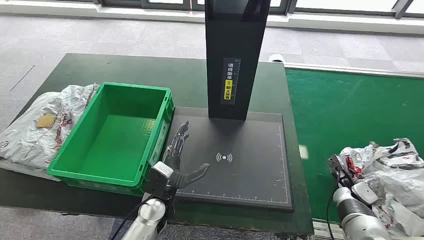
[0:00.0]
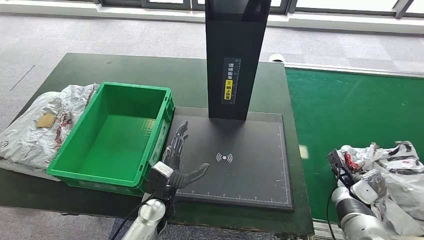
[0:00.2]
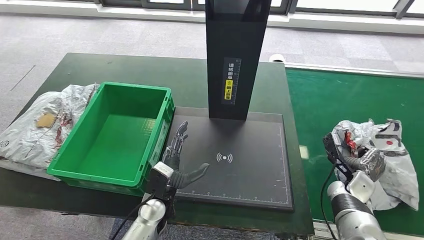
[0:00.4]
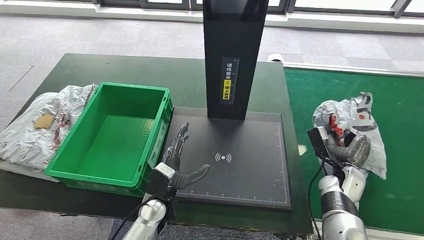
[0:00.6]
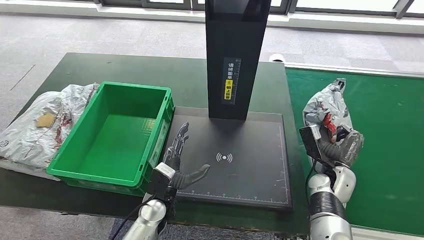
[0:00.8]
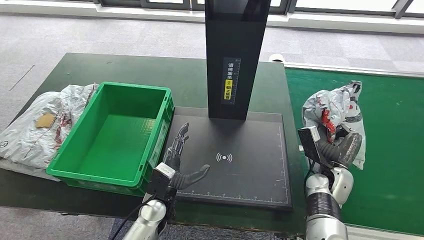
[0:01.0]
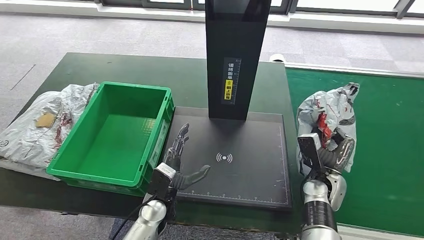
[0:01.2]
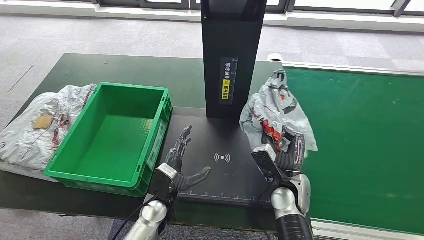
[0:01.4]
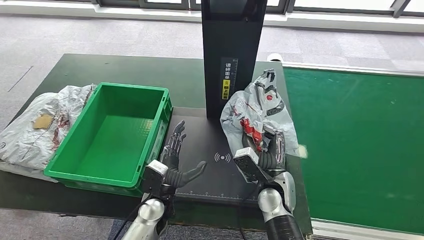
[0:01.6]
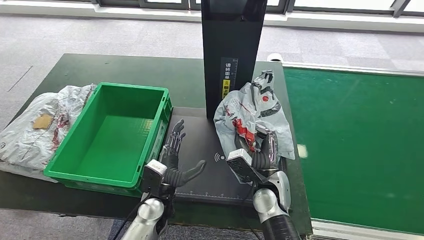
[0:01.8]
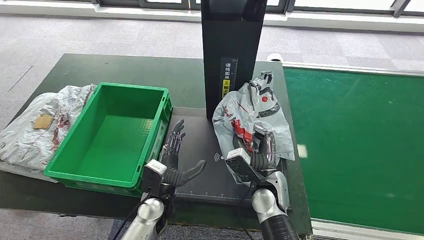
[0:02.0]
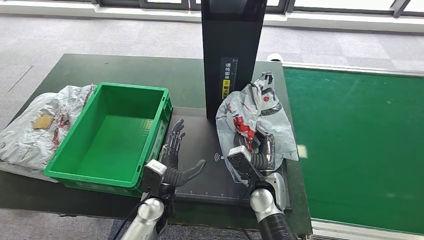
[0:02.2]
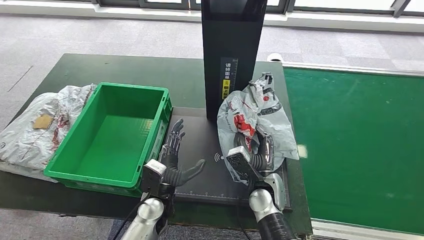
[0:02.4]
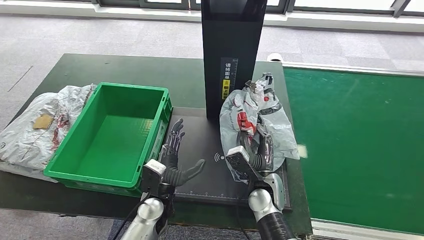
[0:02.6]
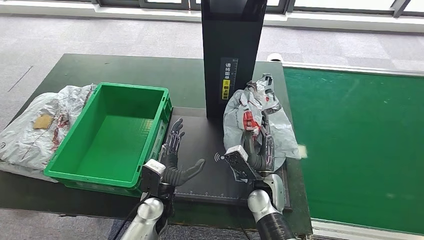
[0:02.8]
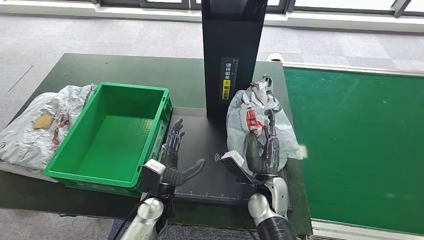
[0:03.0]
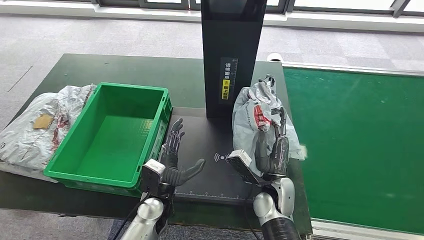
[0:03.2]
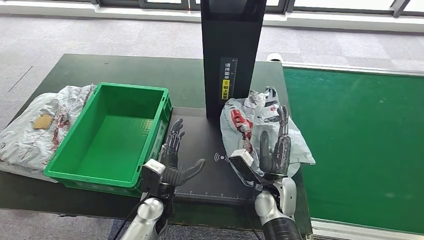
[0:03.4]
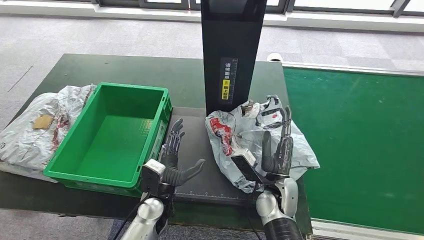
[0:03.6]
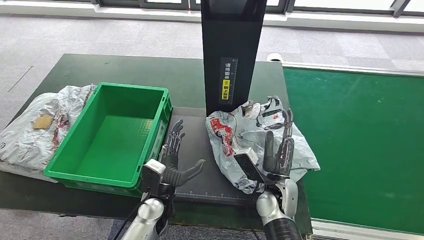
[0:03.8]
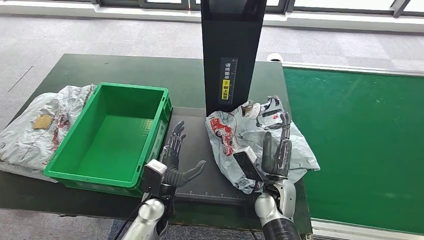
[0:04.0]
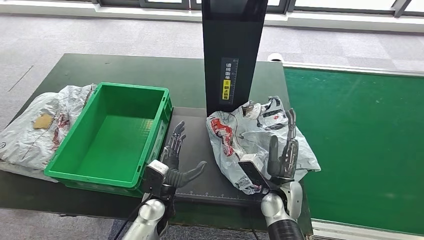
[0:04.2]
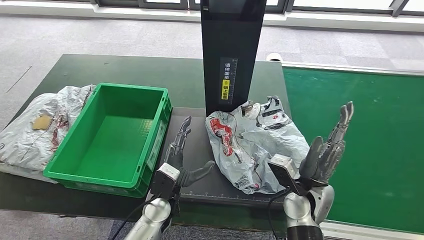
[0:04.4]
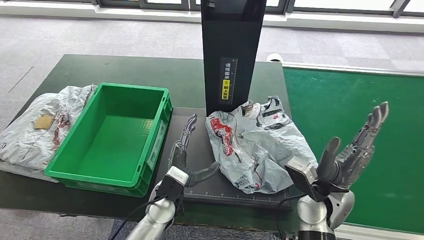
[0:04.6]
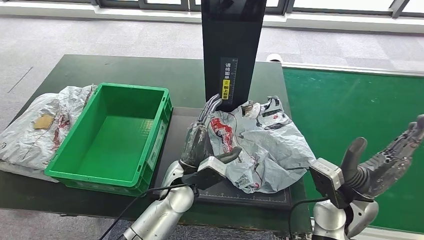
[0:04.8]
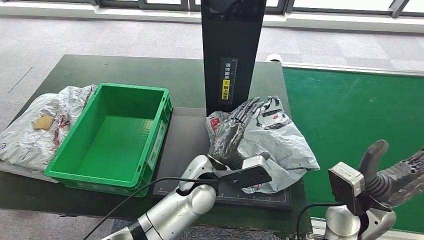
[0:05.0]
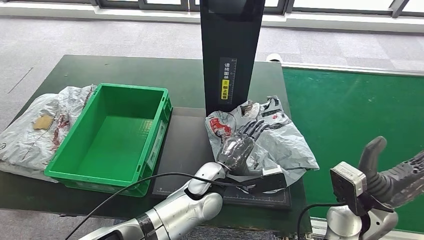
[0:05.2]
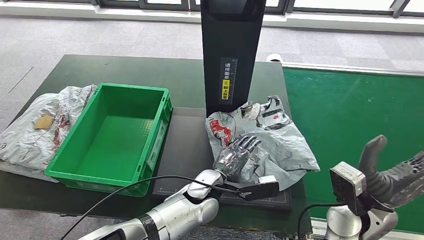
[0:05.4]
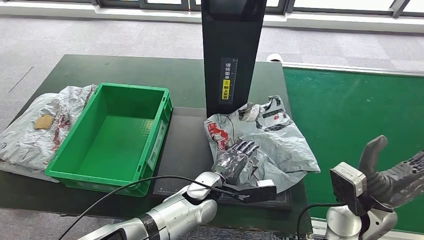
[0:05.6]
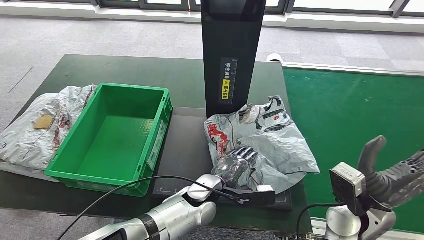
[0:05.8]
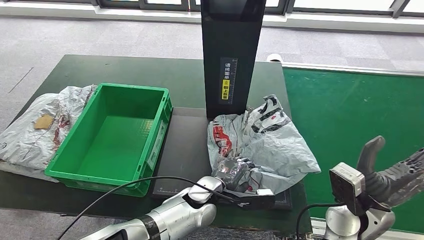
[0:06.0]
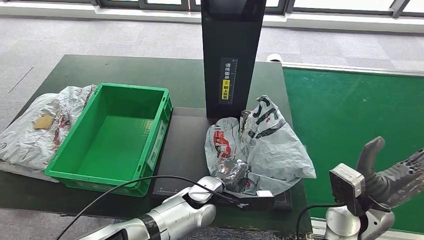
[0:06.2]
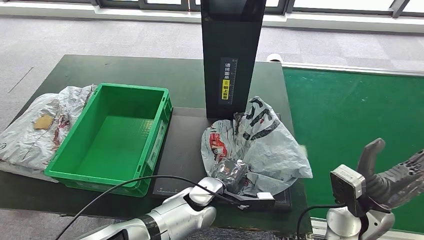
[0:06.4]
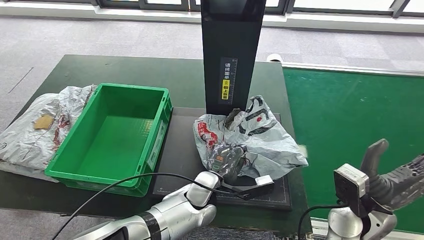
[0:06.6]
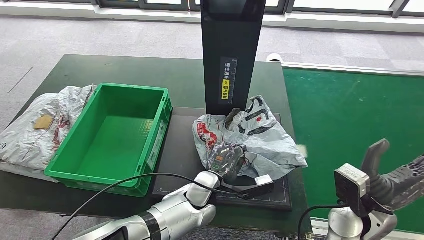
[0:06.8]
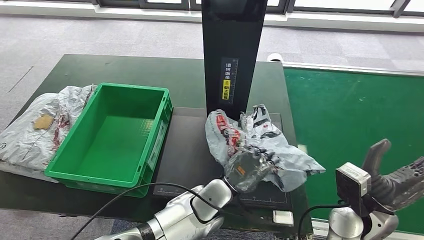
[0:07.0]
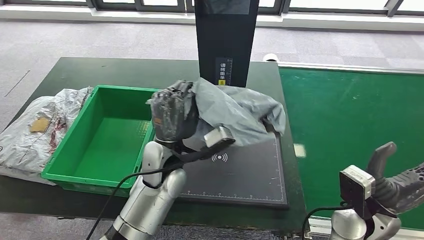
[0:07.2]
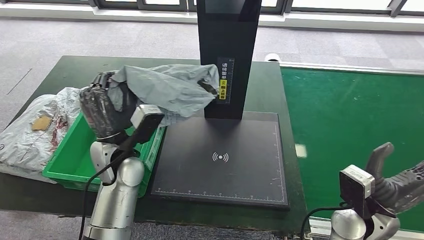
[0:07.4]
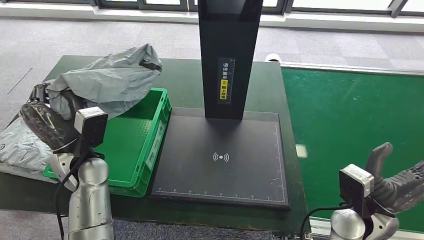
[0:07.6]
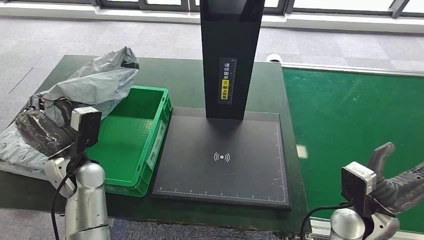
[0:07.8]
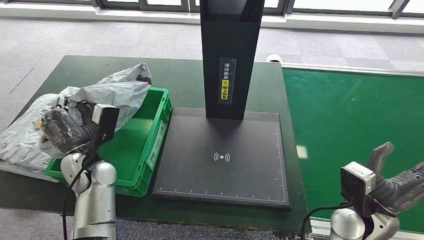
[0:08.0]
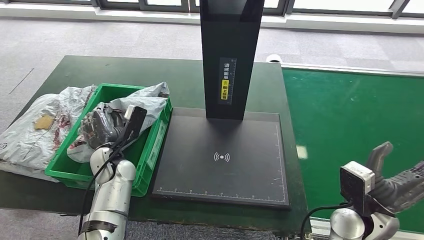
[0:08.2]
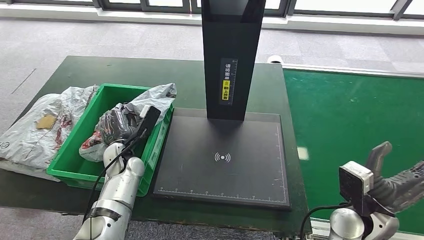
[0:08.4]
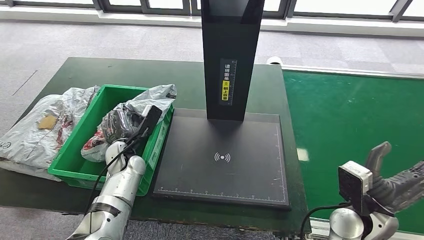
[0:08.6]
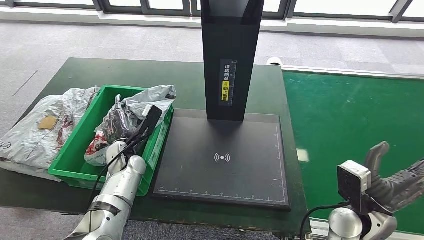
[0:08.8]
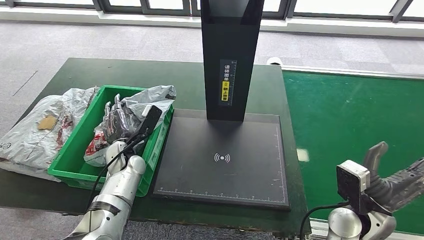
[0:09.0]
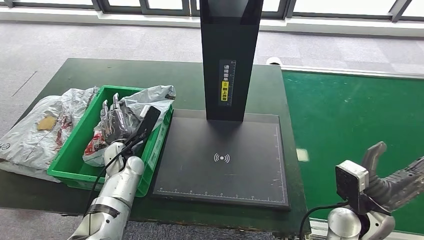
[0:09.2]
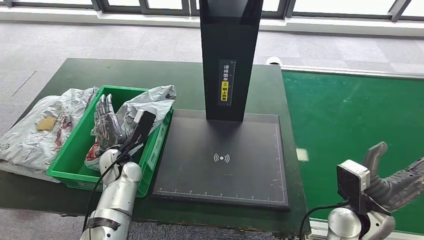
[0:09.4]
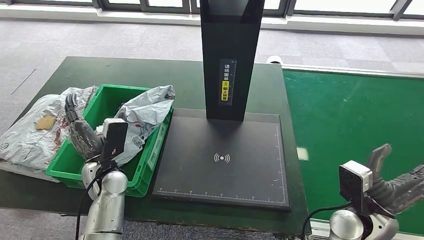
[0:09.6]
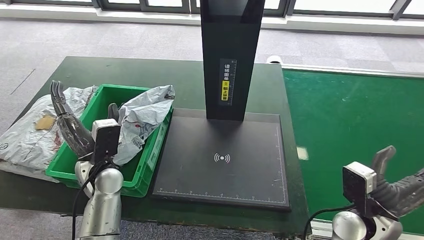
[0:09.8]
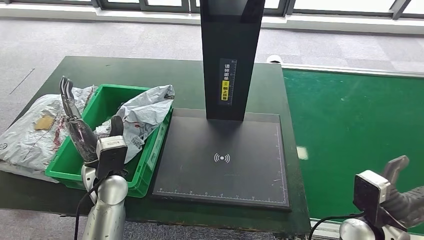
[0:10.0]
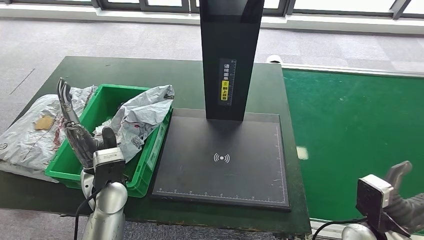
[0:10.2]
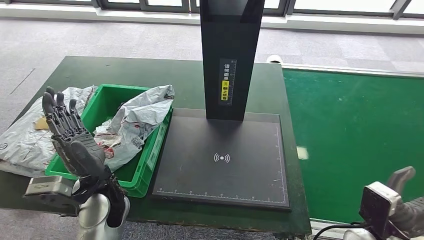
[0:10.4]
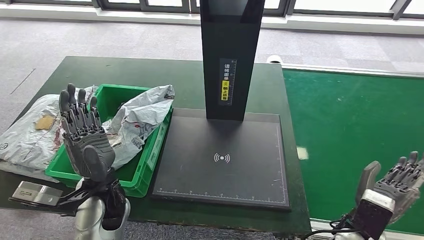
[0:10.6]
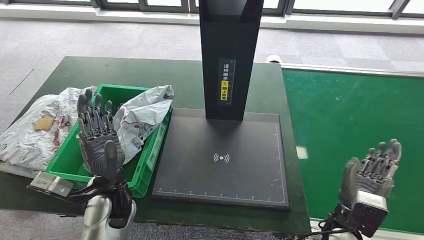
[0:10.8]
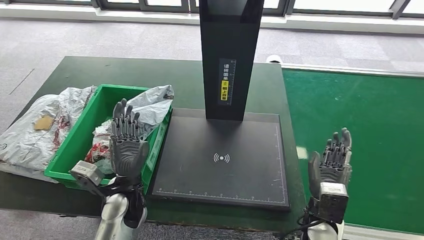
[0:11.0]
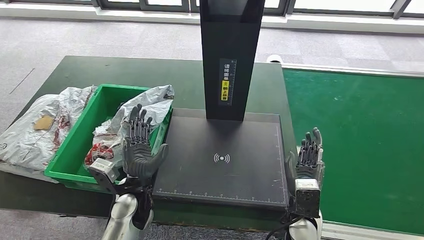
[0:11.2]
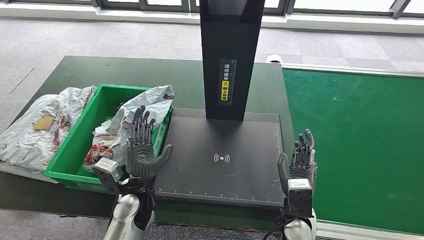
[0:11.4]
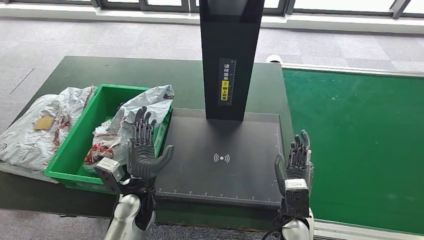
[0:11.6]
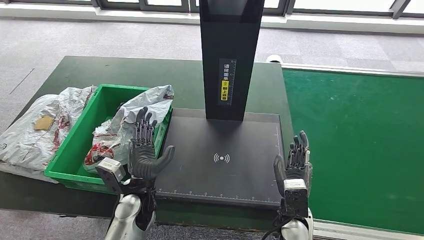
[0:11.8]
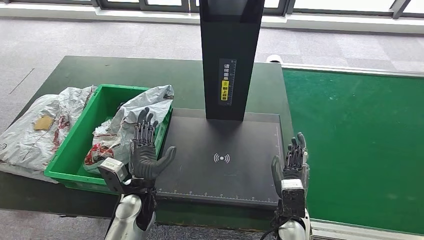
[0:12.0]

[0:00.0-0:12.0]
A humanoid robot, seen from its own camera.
Step, 0:00.0 to 0:01.2: Take the parcel off the conveyor belt.
Step, 0:01.6 to 0:04.8: Place the parcel onto the inbound machine.
Step, 0:05.0 to 0:07.2: Pick up the parcel from the inbound machine.
Step, 0:07.6 to 0:10.4: Put the parcel inside the courier box.
0:01.6 to 0:03.0: The hands stay close to where they were, moving slightly.
0:03.0 to 0:04.4: The right hand heads to the right, covering some 5 cm.
0:10.4 to 0:12.0: The right hand moves to the left, some 15 cm; the left hand travels downward and to the right by approximately 10 cm.

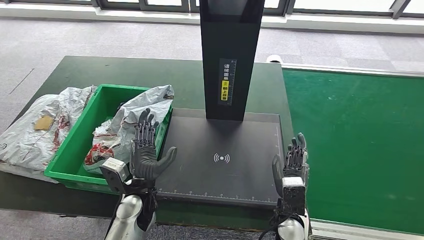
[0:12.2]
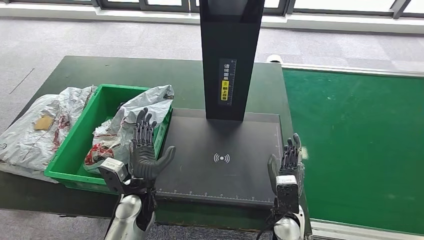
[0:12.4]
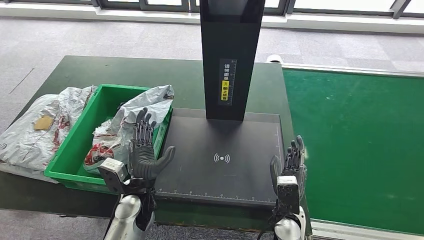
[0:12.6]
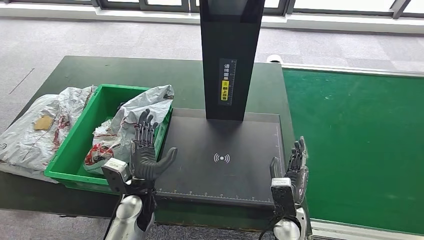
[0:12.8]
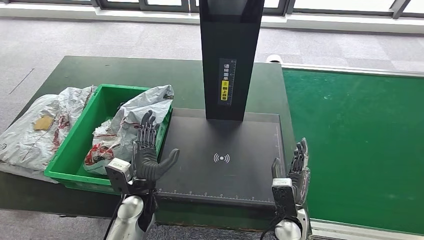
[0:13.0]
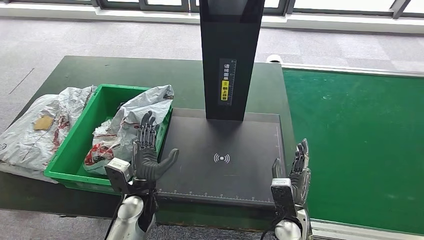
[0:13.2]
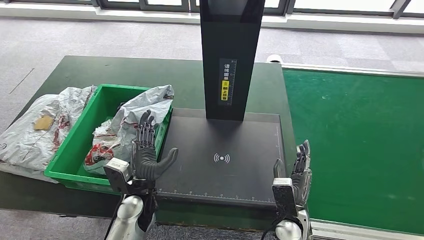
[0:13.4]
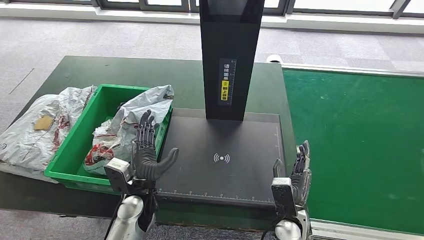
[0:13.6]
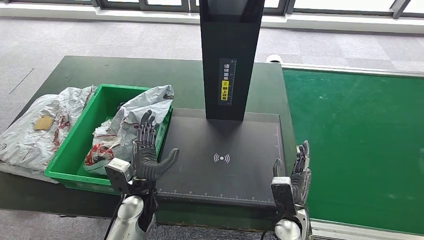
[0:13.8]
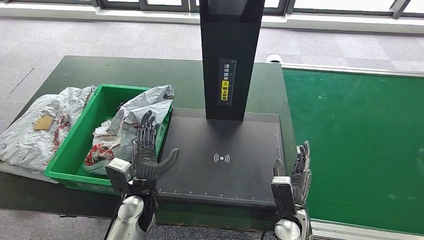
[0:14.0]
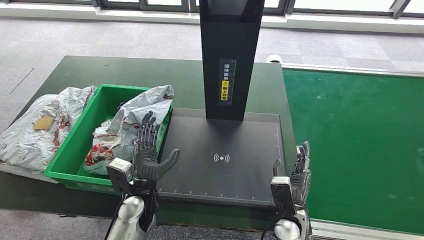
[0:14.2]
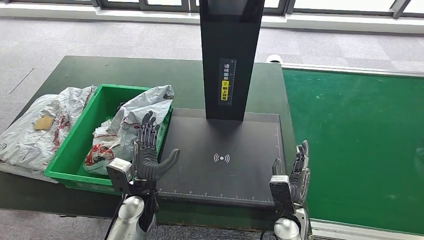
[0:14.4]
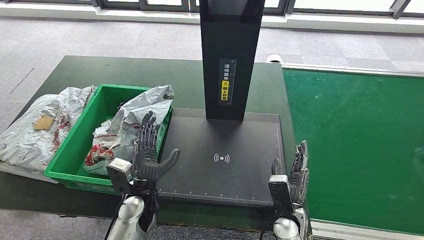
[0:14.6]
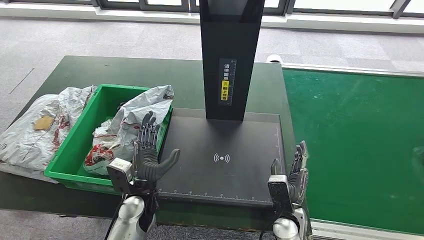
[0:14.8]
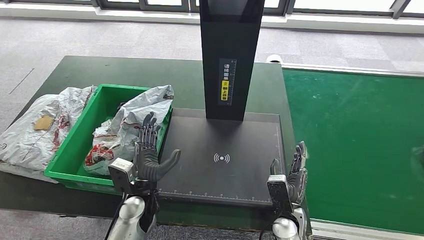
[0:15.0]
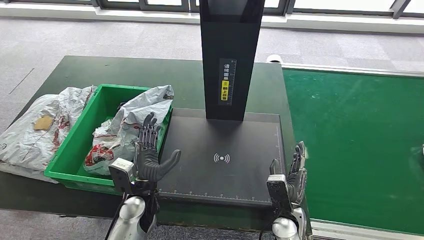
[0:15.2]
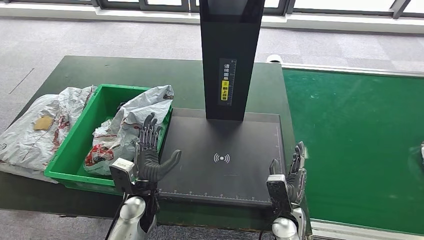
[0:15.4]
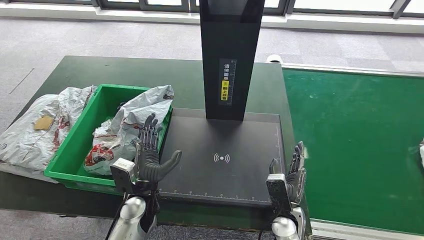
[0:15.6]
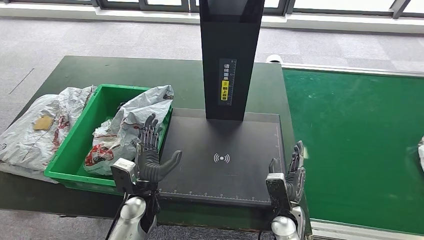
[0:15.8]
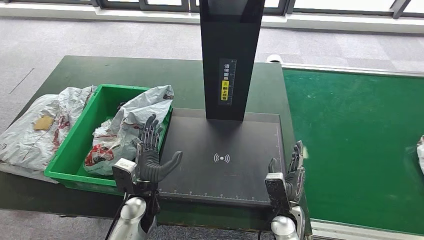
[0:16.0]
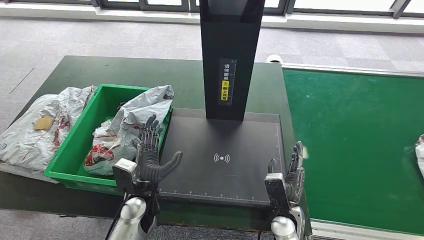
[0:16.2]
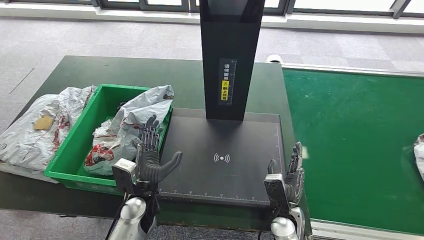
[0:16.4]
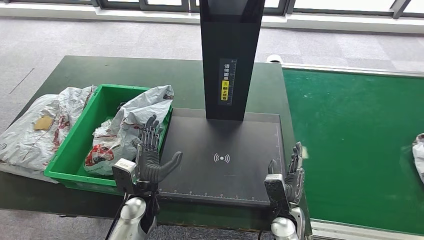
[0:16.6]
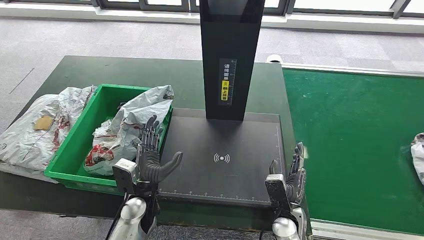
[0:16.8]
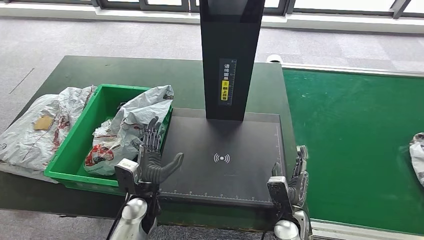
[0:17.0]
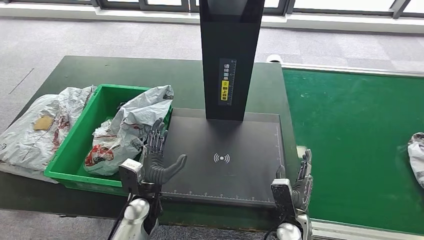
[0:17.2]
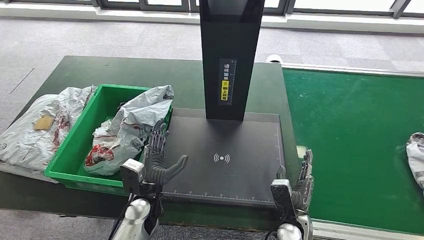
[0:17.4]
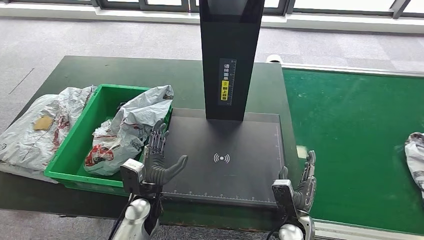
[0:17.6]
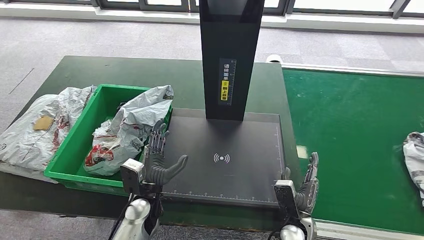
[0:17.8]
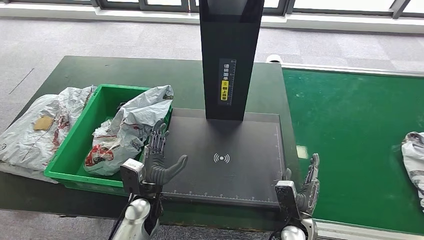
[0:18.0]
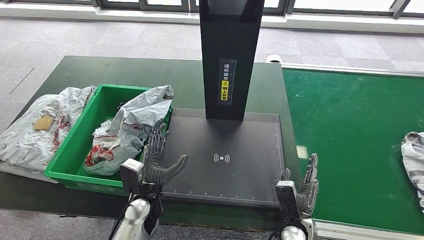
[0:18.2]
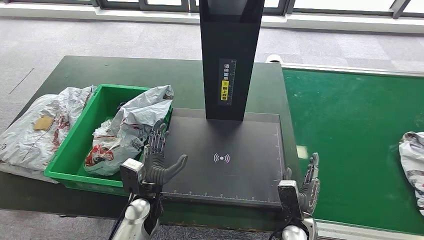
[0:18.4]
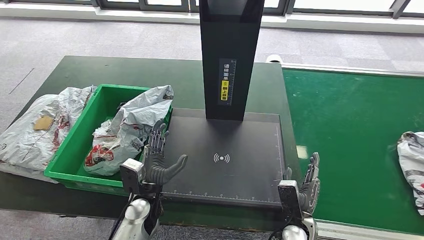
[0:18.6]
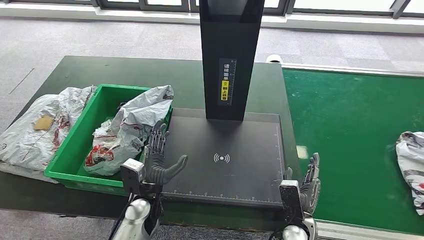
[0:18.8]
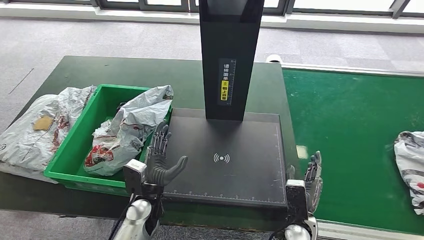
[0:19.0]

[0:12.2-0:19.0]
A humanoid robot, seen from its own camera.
0:12.2 to 0:13.6: The hands move only a little.
0:13.6 to 0:15.0: Neither hand changes place.
0:15.0 to 0:16.2: The two hands keep their place.
0:16.2 to 0:19.0: There are only small adjustments of the hands.
